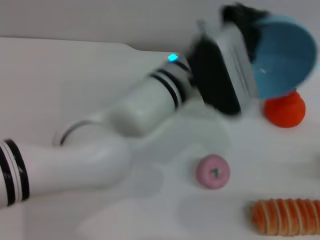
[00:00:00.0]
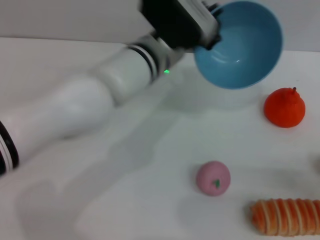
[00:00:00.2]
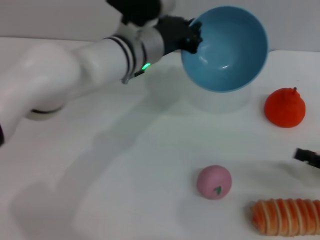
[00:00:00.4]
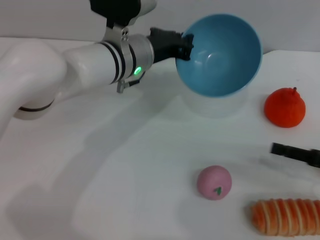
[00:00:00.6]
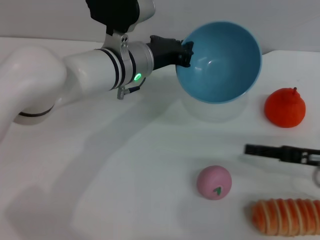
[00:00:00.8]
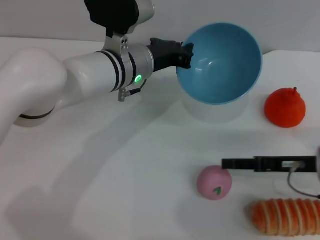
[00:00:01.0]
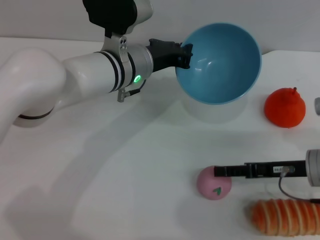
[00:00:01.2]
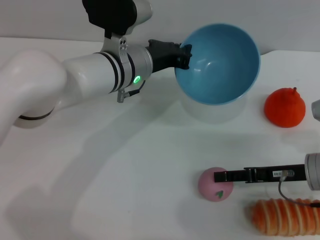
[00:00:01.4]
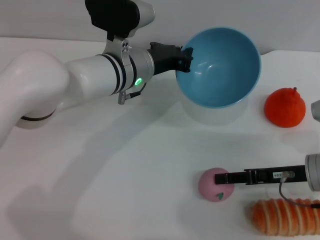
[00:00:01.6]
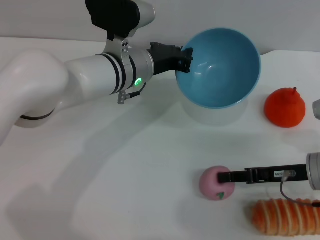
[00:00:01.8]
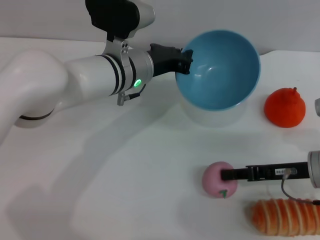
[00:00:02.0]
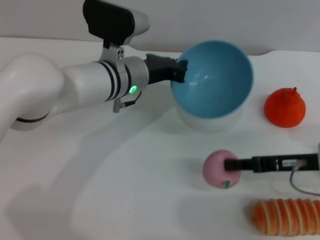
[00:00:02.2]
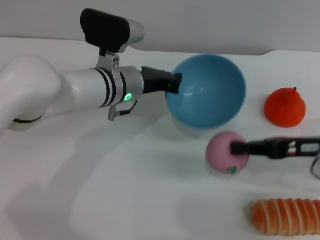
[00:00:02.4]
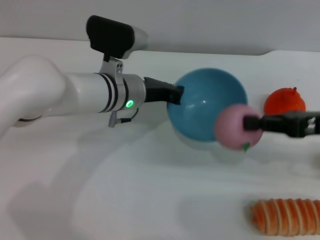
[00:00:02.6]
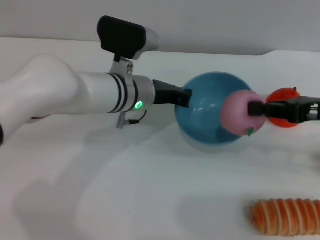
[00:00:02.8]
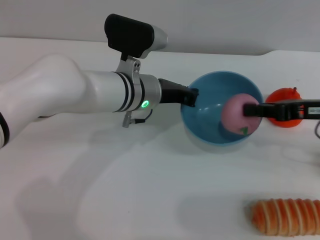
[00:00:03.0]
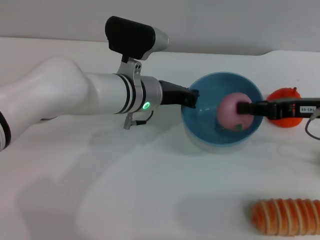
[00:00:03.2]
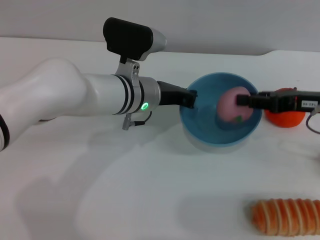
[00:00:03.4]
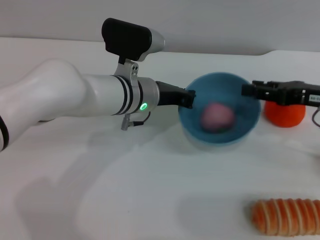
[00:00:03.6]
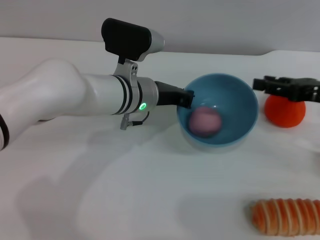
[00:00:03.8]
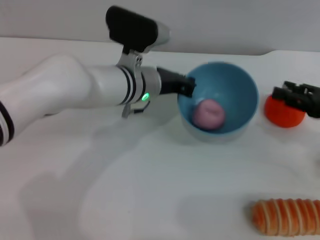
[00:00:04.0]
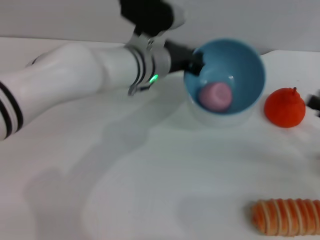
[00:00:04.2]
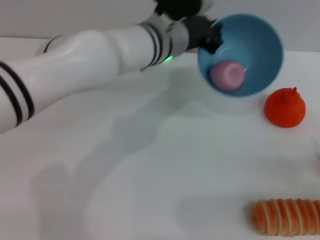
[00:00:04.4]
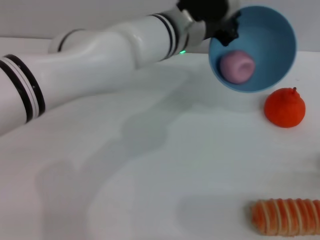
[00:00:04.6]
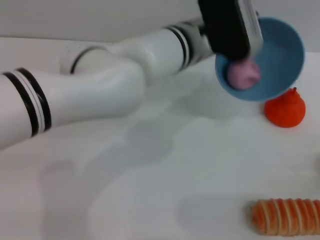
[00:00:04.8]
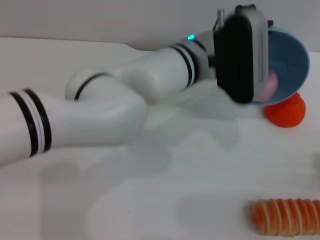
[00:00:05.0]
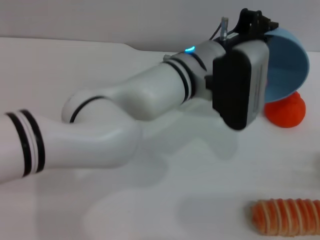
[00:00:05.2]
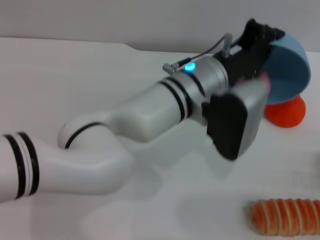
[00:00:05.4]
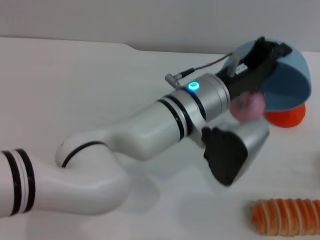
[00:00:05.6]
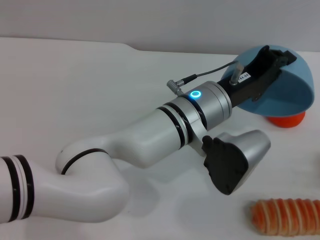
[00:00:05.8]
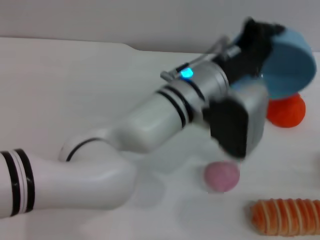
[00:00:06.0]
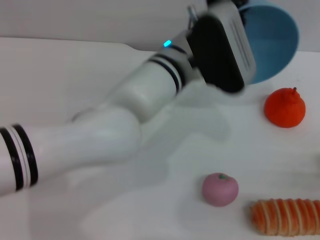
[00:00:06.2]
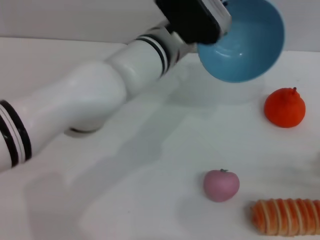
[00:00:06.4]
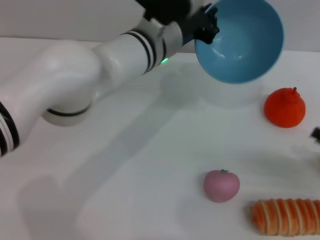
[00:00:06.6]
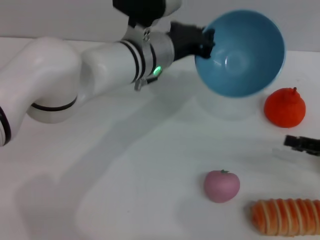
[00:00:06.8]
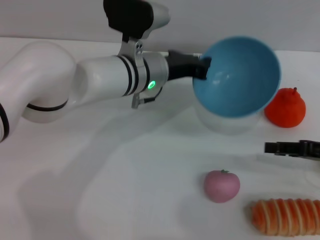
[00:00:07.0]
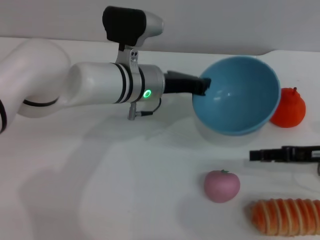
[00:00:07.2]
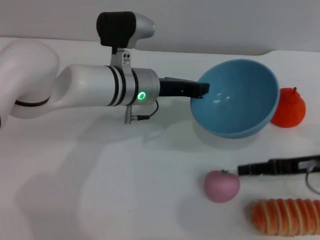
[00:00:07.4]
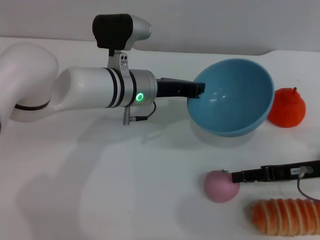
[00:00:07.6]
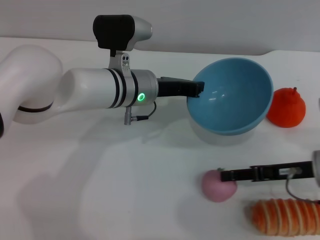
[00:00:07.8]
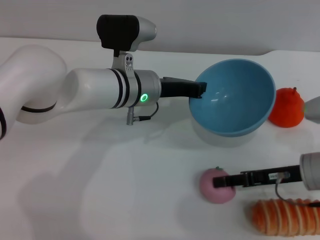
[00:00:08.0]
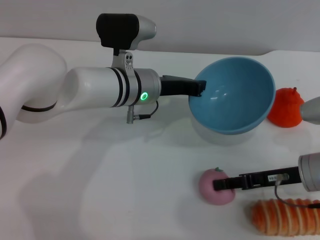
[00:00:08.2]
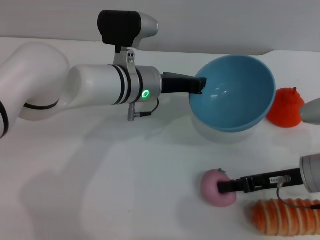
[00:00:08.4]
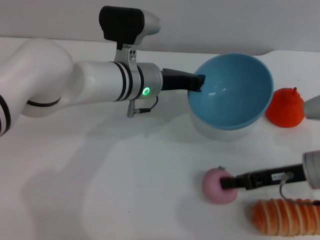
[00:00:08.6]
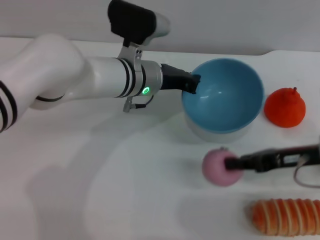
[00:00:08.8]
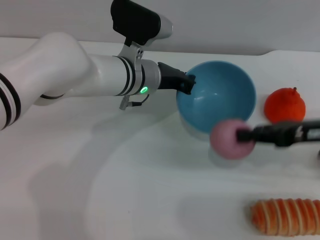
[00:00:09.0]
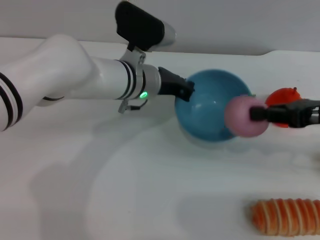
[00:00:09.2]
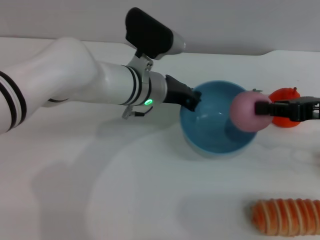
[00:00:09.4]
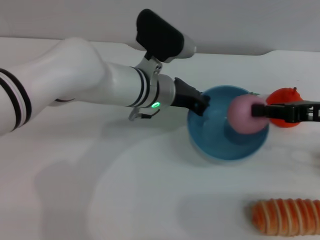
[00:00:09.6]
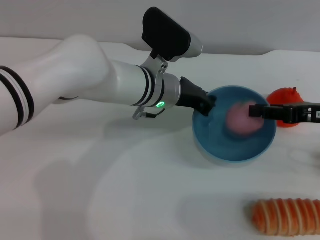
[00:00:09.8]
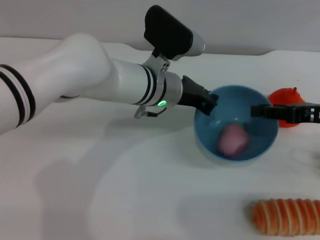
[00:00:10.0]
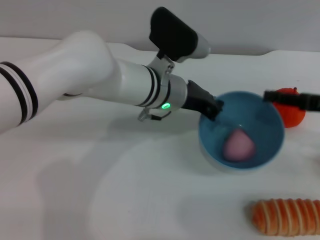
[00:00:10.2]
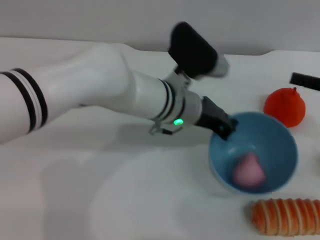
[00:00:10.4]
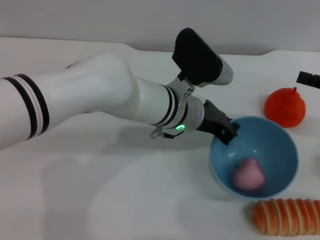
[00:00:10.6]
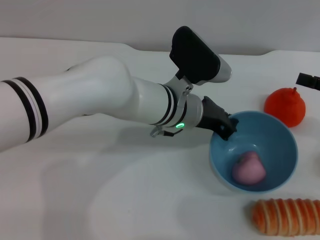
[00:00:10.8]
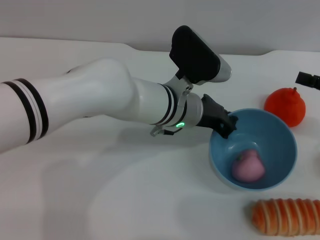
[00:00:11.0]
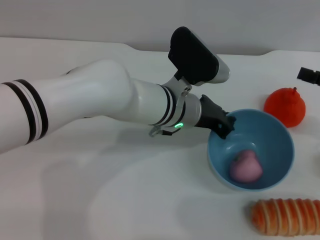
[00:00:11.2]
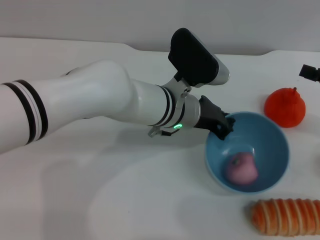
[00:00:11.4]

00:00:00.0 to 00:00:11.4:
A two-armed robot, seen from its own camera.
Task of the whole recording: put the peach into the blue bowl and pour it out repeatedly.
Step, 00:00:00.0 to 00:00:02.2: Pick up the peach with the right gripper.
Step, 00:00:02.4 to 00:00:03.8: Place the peach into the bowl.
Step, 00:00:04.0 to 00:00:05.8: Pour the peach out of bowl.
Step, 00:00:06.0 to 00:00:09.0: Pick up the peach with the right gripper.
Step, 00:00:09.2 to 00:00:10.4: Place the peach into the bowl.
00:00:00.0 to 00:00:01.4: The right gripper heads to the left and forward, covering roughly 20 cm. Meanwhile the left gripper shifts approximately 5 cm to the left.
00:00:01.4 to 00:00:02.8: The right gripper goes roughly 10 cm upward, and closes up.
00:00:02.8 to 00:00:04.2: The right gripper shifts roughly 10 cm downward, to the right and backward, and opens its fingers.
00:00:04.2 to 00:00:05.6: The left gripper moves backward and to the right, some 10 cm; the right gripper moves backward and downward, approximately 10 cm.
00:00:05.6 to 00:00:07.2: The right gripper travels forward and to the left by approximately 15 cm, while the left gripper moves to the left and forward, about 10 cm.
00:00:07.2 to 00:00:08.6: The right gripper shifts about 5 cm to the left, and closes.
00:00:08.6 to 00:00:10.0: The right gripper moves upward and to the right, roughly 10 cm.
00:00:10.0 to 00:00:11.4: The right gripper travels to the right by some 5 cm.

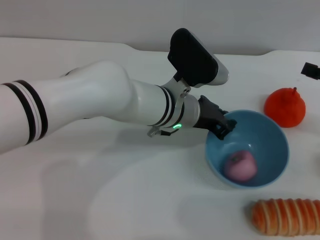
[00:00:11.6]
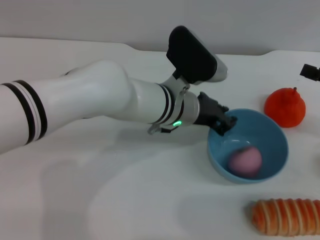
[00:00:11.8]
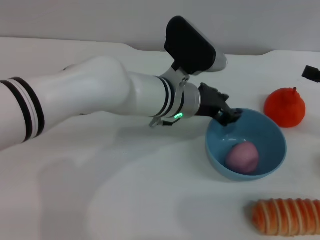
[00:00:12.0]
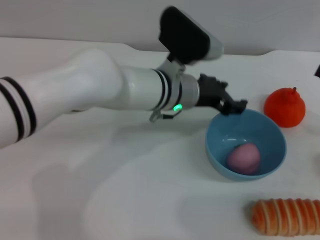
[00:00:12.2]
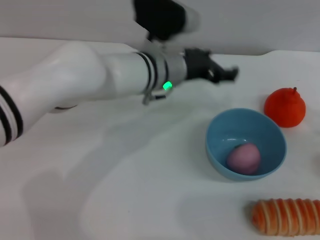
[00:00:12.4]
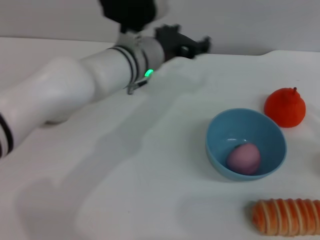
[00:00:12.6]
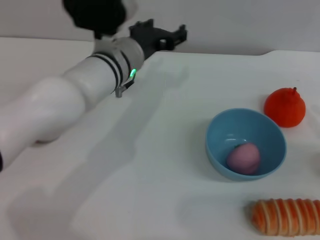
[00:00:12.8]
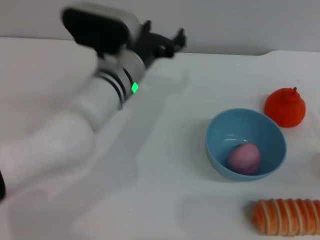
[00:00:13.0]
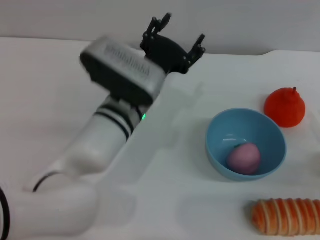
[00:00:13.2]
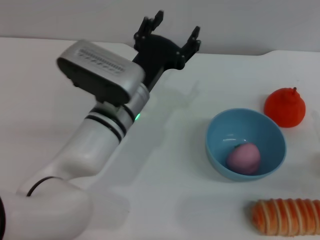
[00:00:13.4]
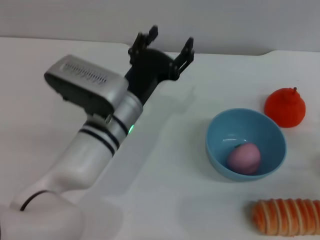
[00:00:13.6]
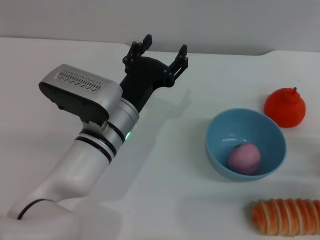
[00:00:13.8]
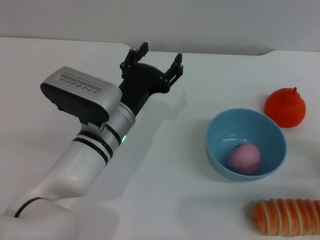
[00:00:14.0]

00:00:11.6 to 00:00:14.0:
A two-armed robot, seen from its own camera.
Task of the whole recording: put the peach into the blue bowl and pour it out repeatedly.
00:00:11.6 to 00:00:12.8: The right gripper moves downward, some 5 cm. Meanwhile the left gripper moves to the left, roughly 5 cm, and opens.
00:00:12.8 to 00:00:14.0: The left gripper heads backward and downward, covering some 10 cm. Meanwhile the right gripper goes some 5 cm downward.
